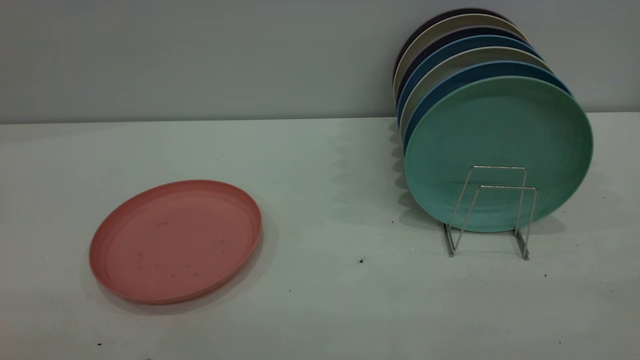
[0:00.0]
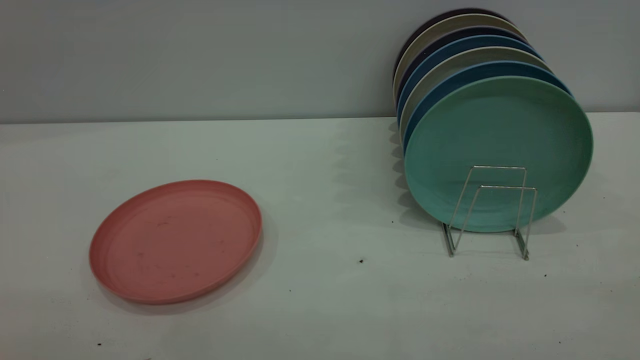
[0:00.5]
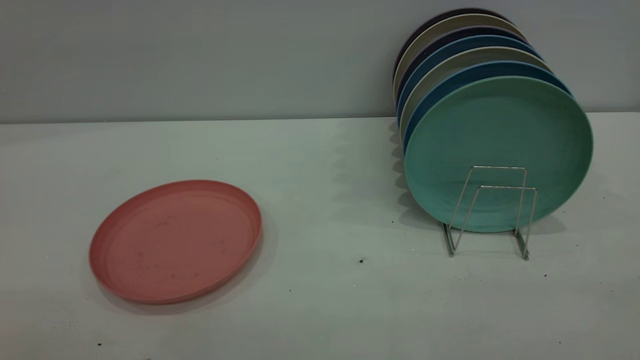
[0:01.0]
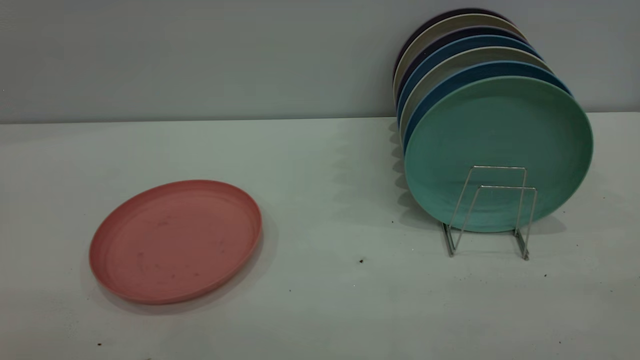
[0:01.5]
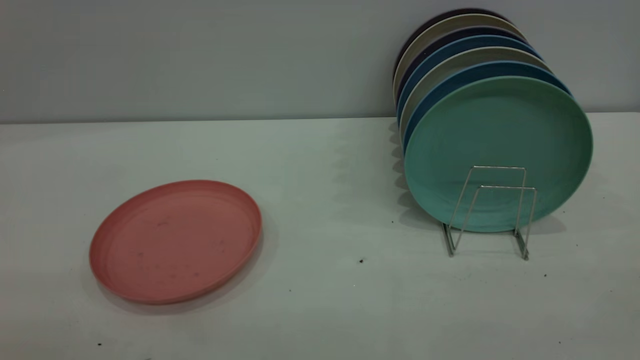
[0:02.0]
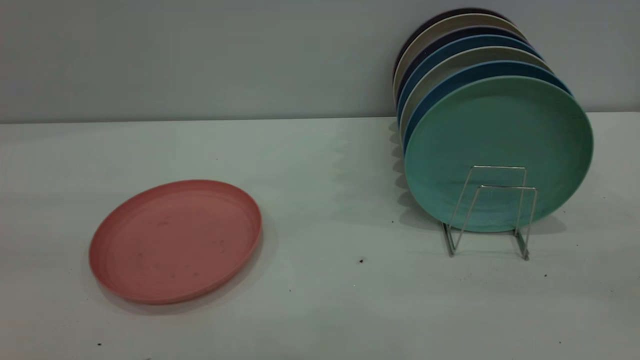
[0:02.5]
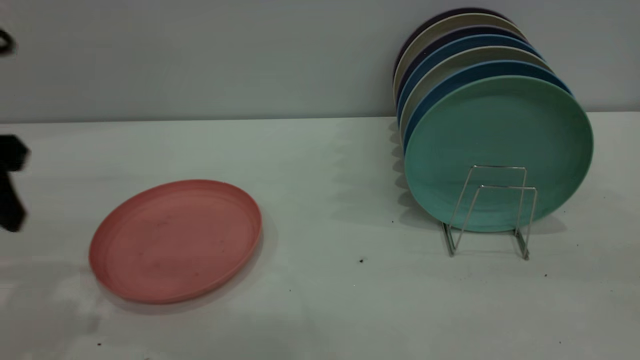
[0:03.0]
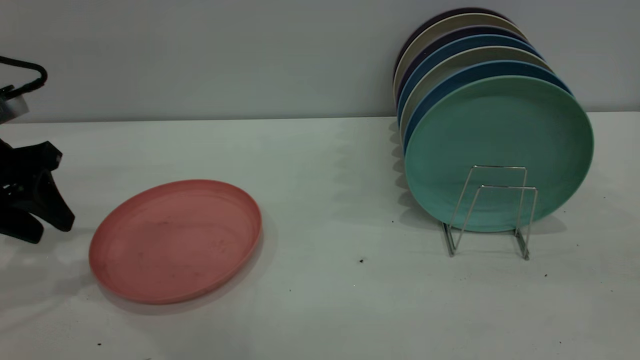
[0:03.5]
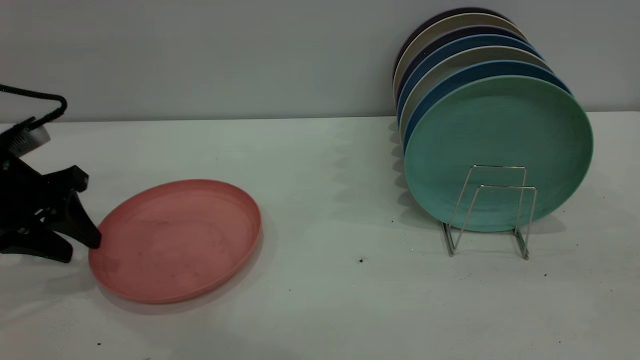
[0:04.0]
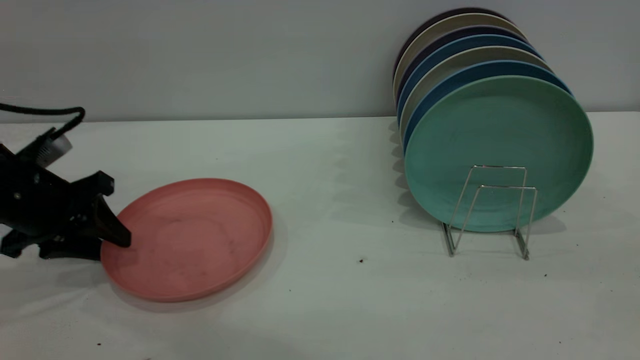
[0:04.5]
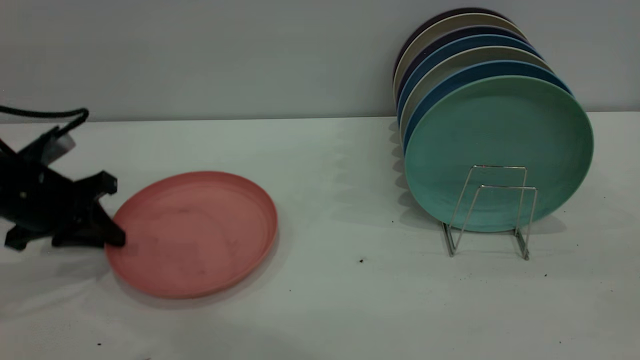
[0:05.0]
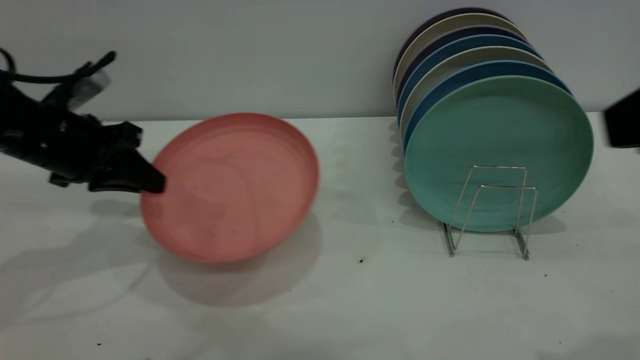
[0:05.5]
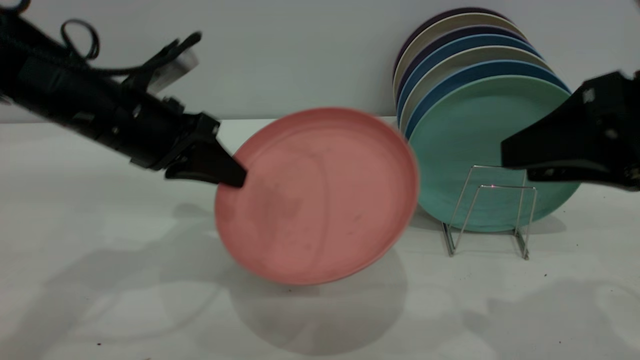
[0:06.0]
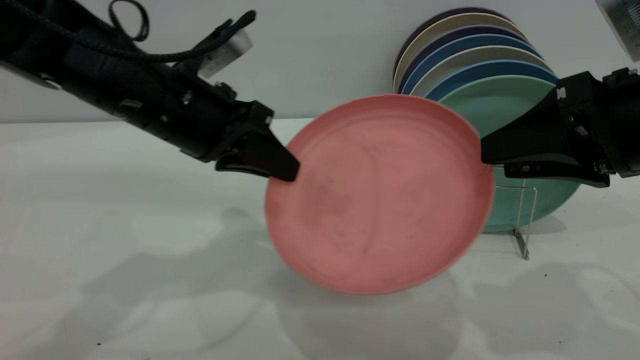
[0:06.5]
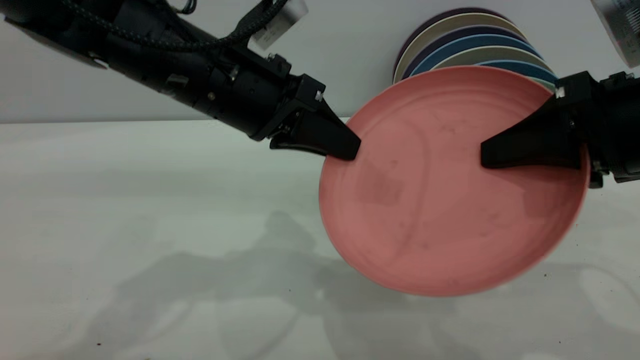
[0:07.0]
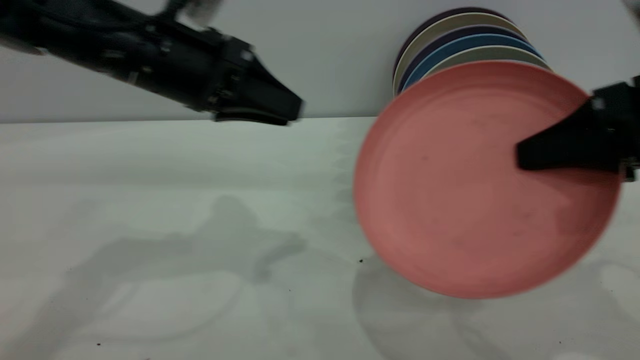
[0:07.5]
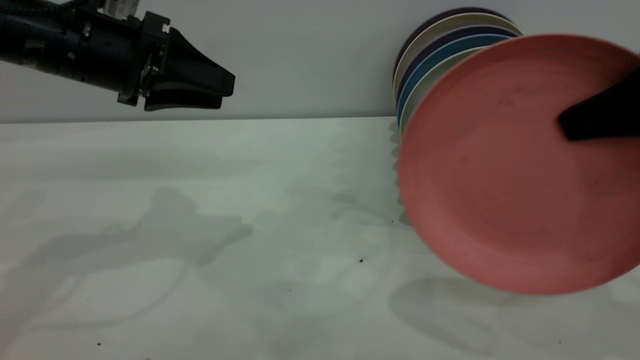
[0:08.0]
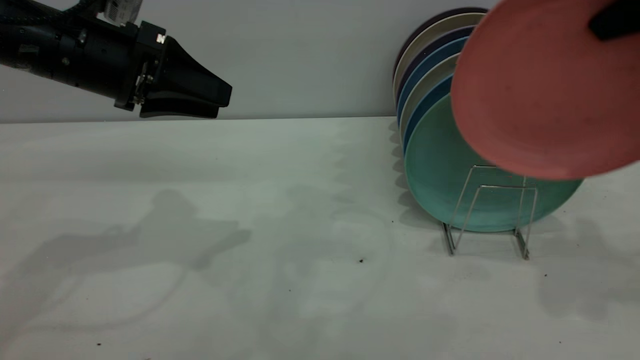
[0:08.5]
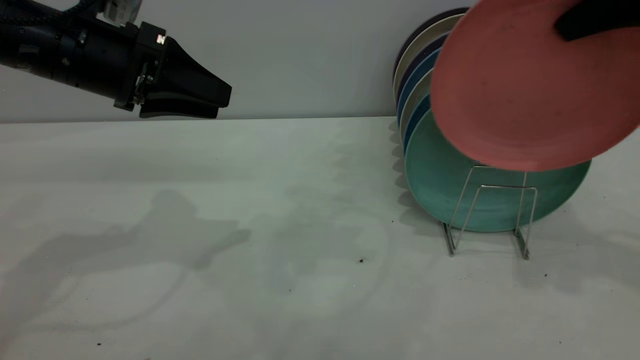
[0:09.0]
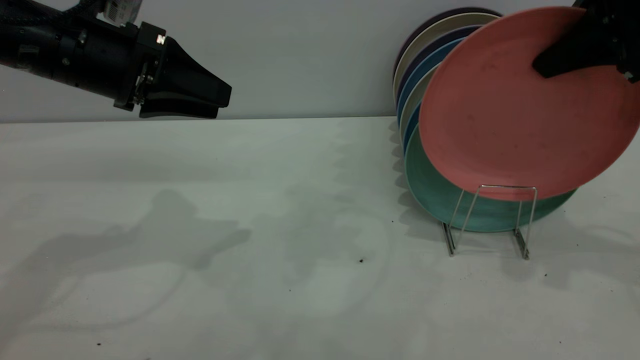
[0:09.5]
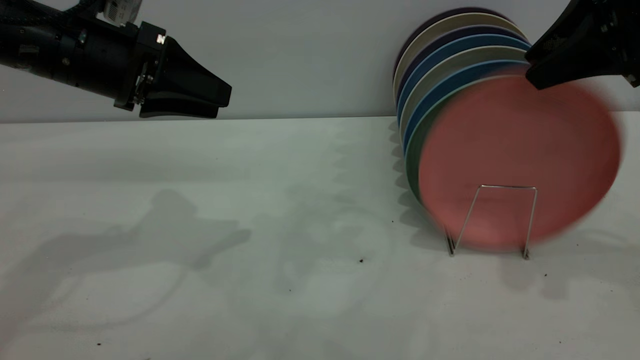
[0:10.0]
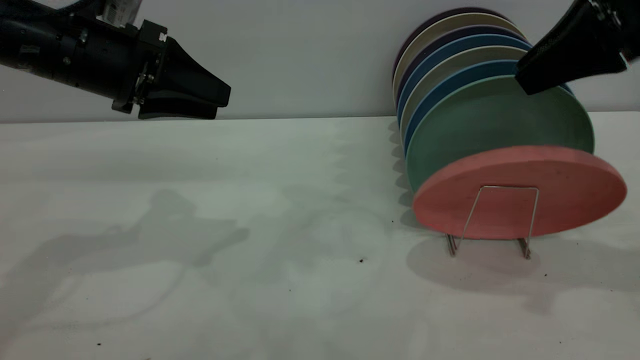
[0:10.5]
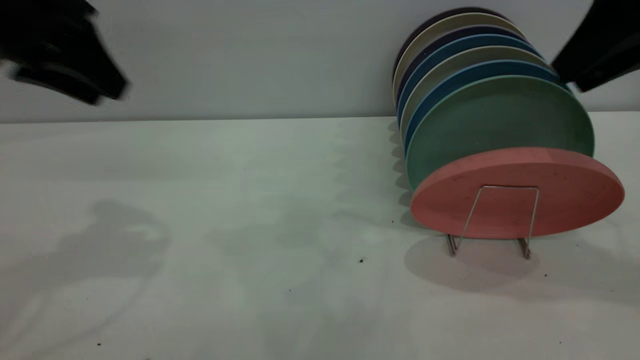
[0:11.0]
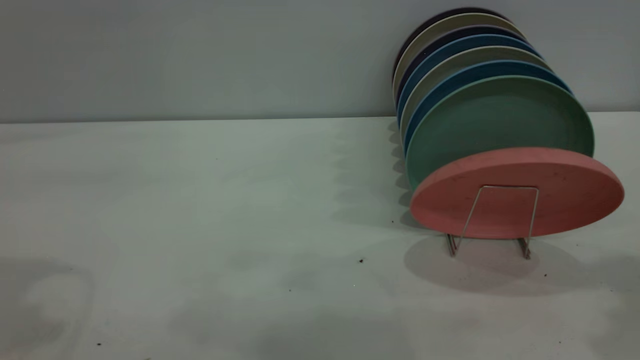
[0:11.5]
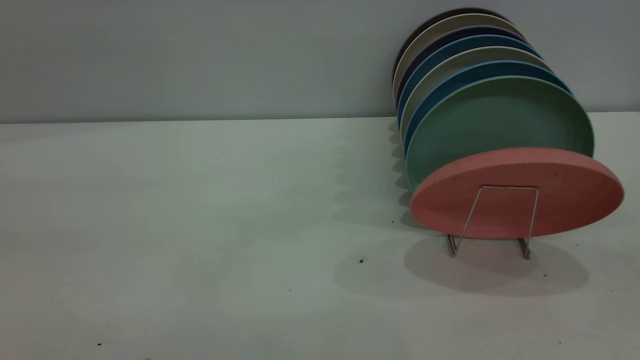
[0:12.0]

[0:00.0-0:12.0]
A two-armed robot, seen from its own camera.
Task of the whole recording: put the plate on the plate rack.
Step, 0:00.0 to 0:05.0: Pick up the plate with the left gripper.
Step, 0:05.5 to 0:07.0: Pass the plate from the left gripper to the right gripper.
Step, 0:07.5 to 0:11.0: Place the plate on the shelf.
0:02.0 to 0:04.0: The left gripper goes roughly 40 cm forward and downward.
0:04.0 to 0:06.0: The right gripper moves forward and downward, approximately 15 cm. Meanwhile the left gripper shifts about 15 cm to the right, and closes its fingers.
0:06.0 to 0:08.0: The right gripper changes place by approximately 5 cm, and closes. The left gripper moves roughly 10 cm to the right and comes back, and opens its fingers.
0:08.0 to 0:10.0: The right gripper heads forward, covering about 10 cm, and opens its fingers.
0:10.0 to 0:12.0: The right gripper travels backward by about 25 cm. Meanwhile the left gripper heads backward and upward, covering about 30 cm.
